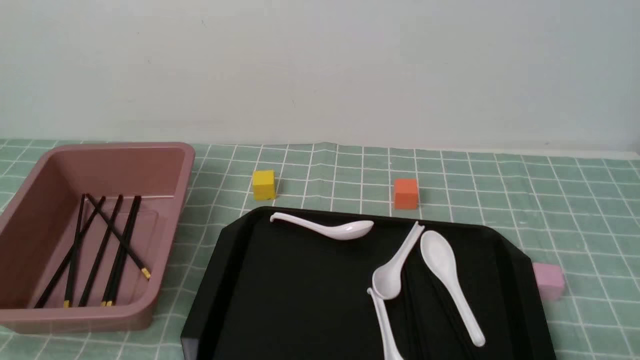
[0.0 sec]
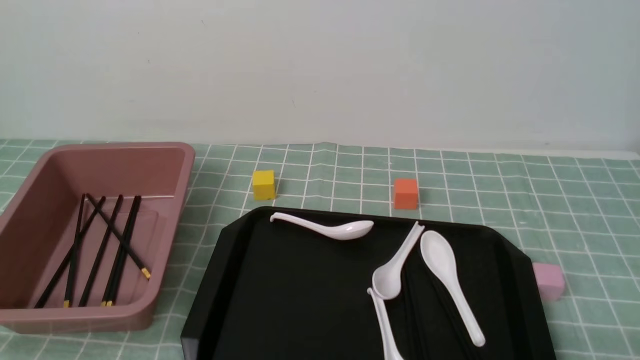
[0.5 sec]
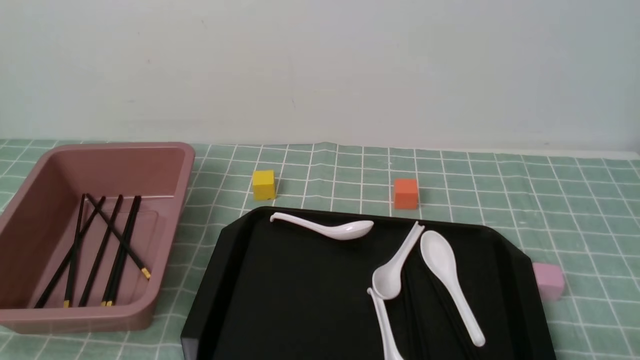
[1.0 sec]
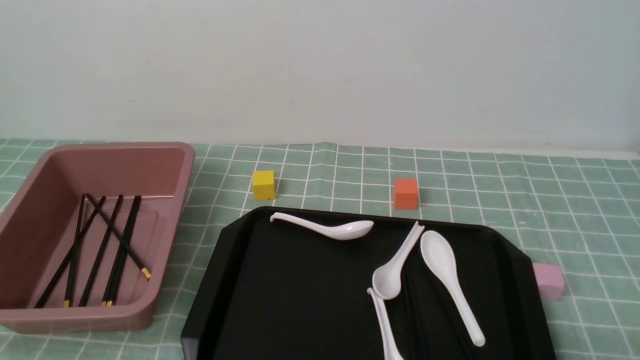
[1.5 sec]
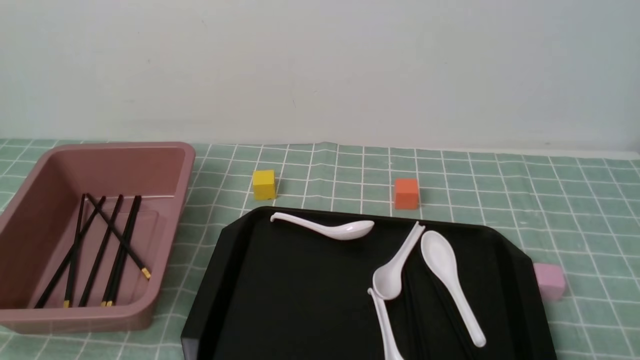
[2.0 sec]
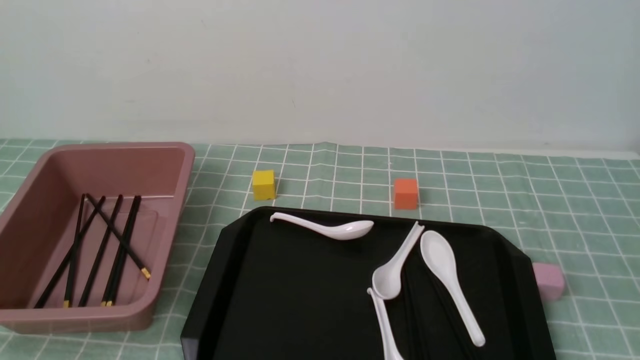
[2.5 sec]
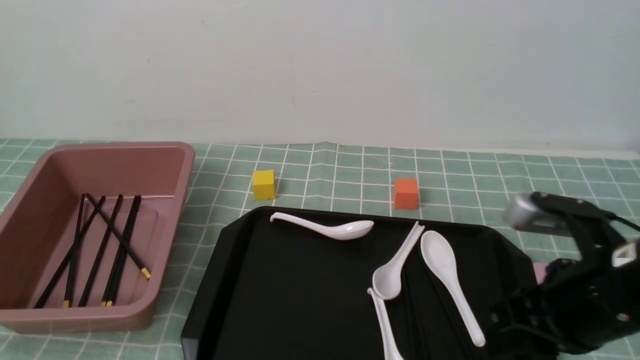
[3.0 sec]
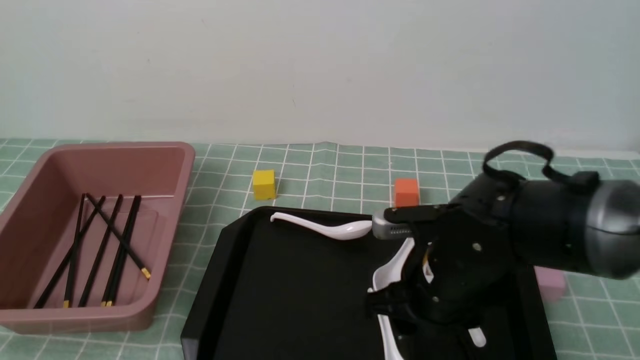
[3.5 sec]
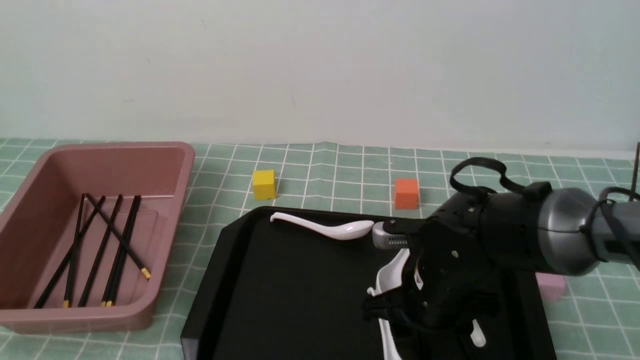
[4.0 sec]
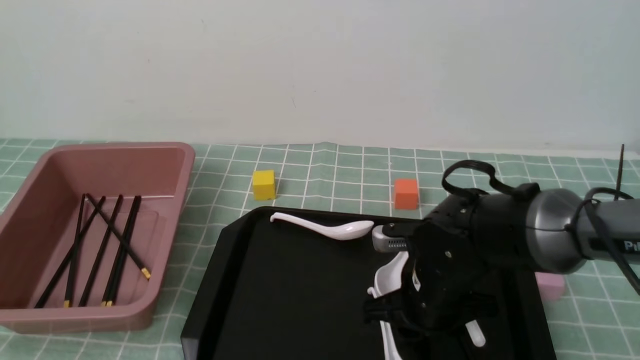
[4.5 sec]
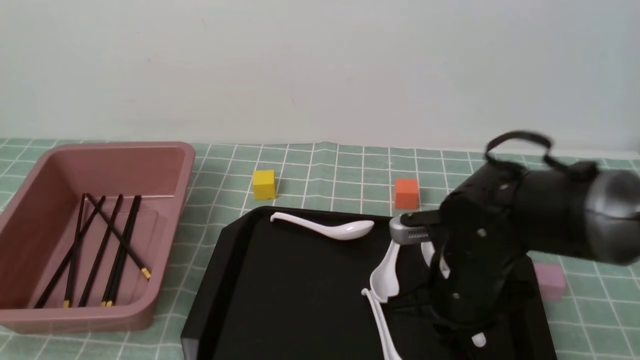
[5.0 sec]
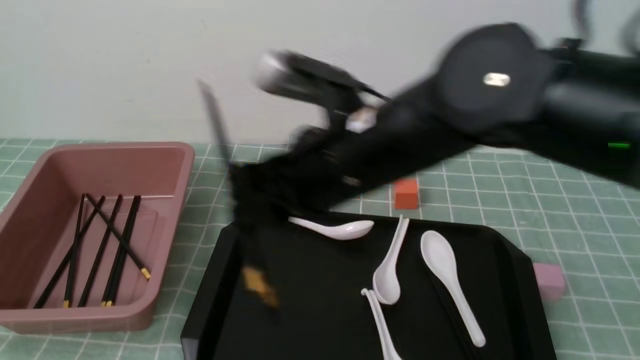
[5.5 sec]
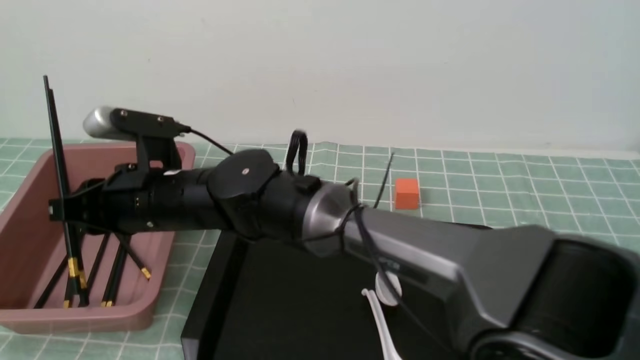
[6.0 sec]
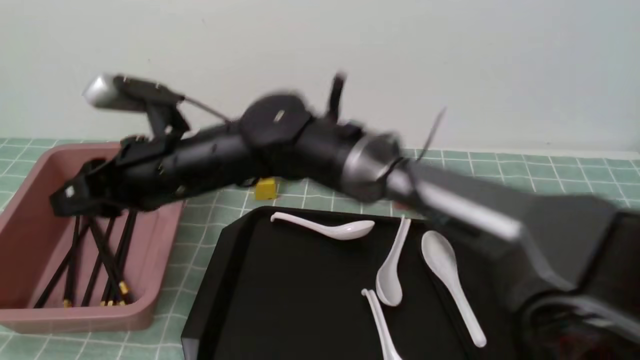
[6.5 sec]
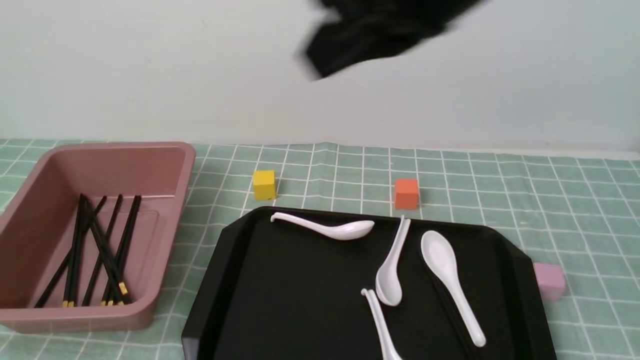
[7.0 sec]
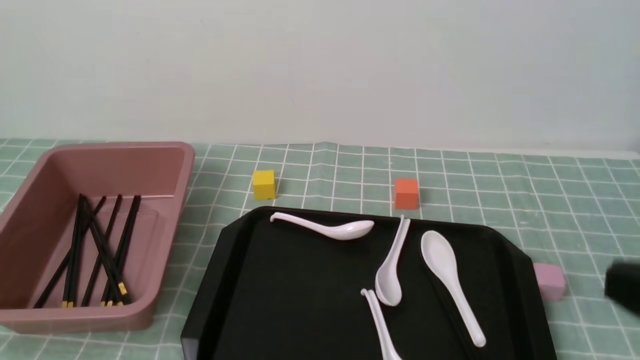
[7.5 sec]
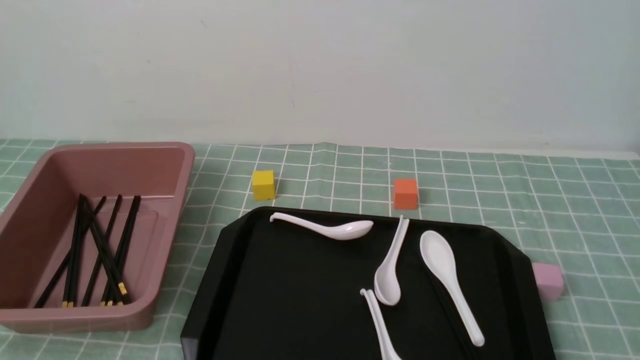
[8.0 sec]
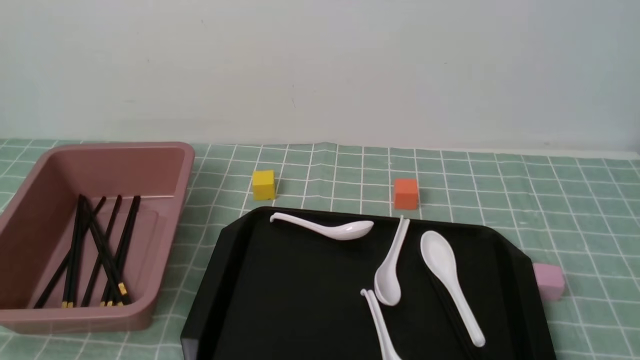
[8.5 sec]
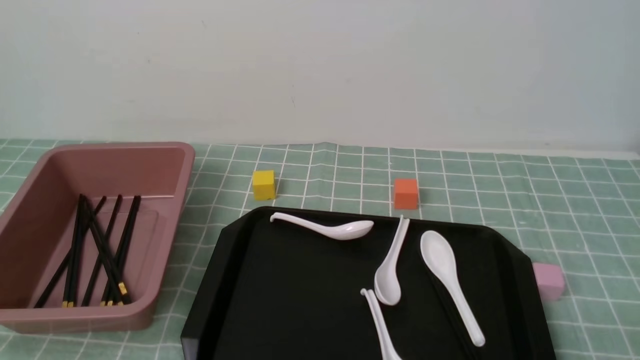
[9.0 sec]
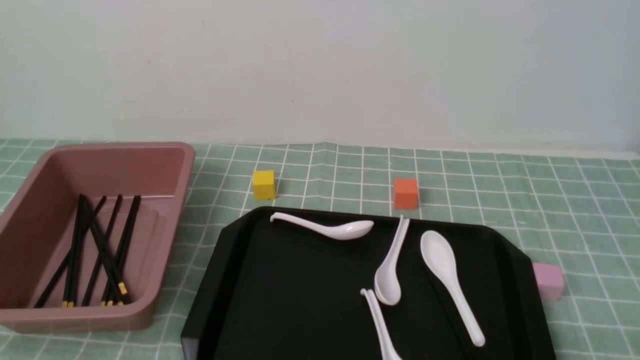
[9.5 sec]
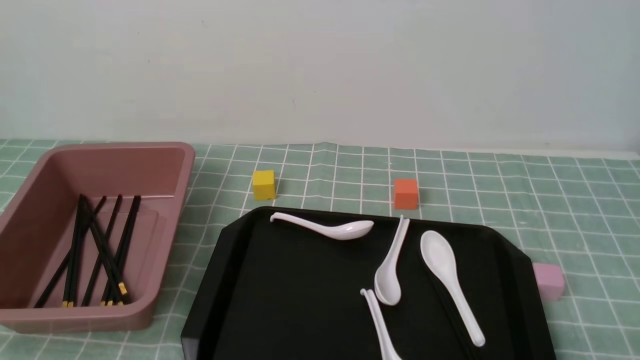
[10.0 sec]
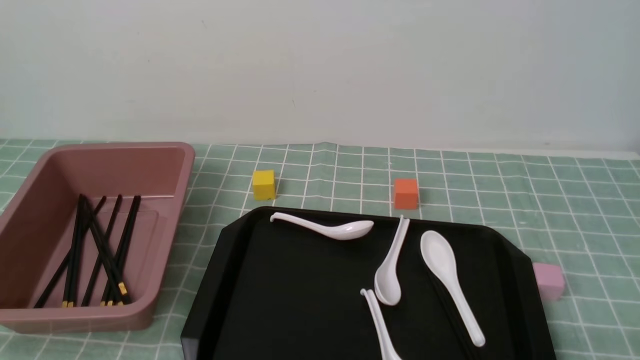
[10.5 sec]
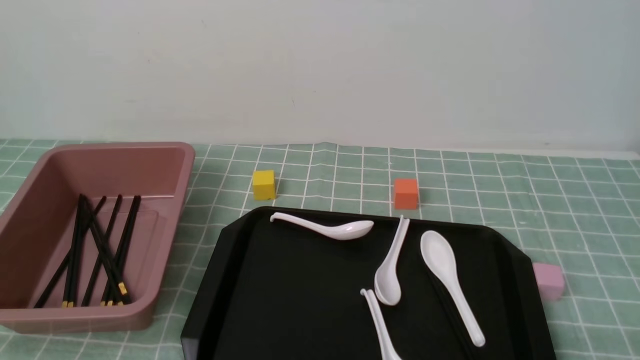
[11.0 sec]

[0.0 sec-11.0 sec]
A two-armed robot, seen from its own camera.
Step, 0.0 sec to 5.0 sec: use the right arm to grab a pair of chopsticks.
Step, 5.5 sec to 6.5 sec: use the right arm to put the chopsticks into the lunch box.
2.0 sec to 3.5 sec: The right gripper shifts approximately 30 cm forward and to the left, and opens up.
3.5 sec to 5.5 sec: The right gripper shifts roughly 15 cm upward and to the left, and closes up.
5.5 sec to 7.5 sec: The right gripper shifts roughly 30 cm to the right and backward.
7.5 sec to 9.0 sec: The right gripper is displaced downward by some 15 cm.

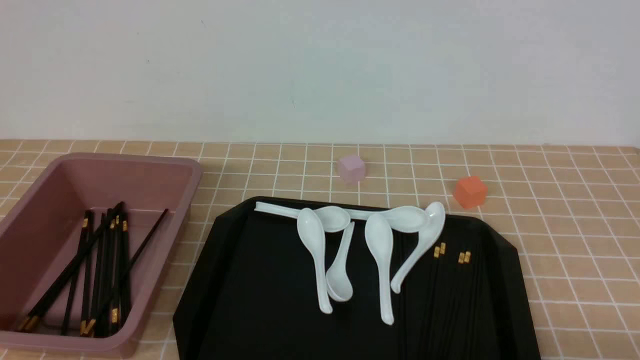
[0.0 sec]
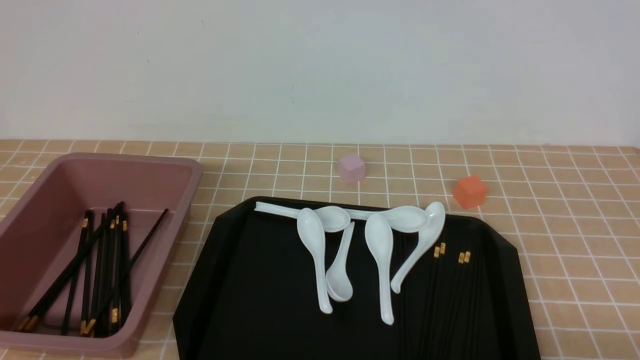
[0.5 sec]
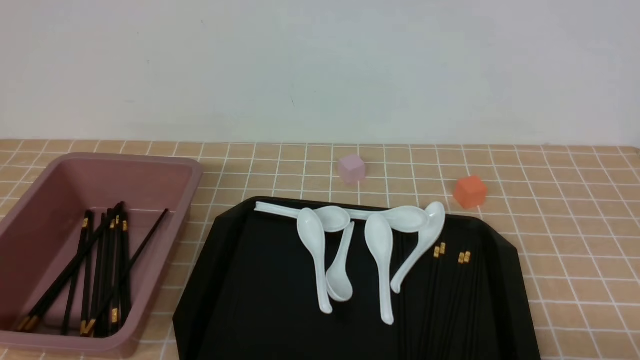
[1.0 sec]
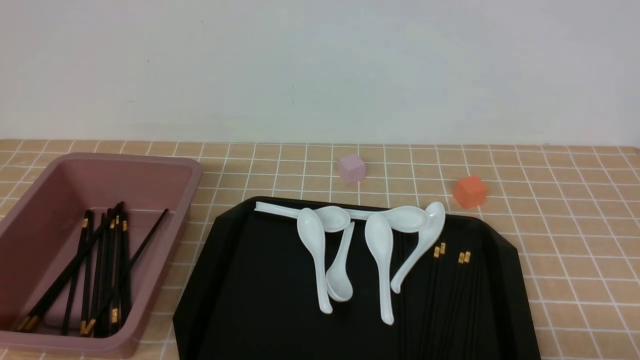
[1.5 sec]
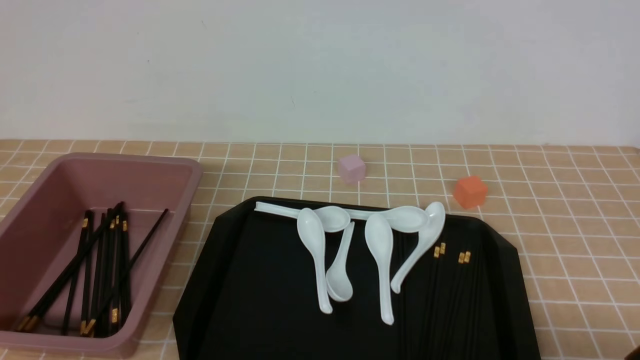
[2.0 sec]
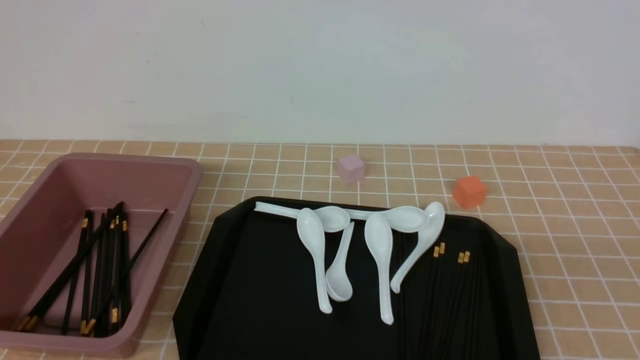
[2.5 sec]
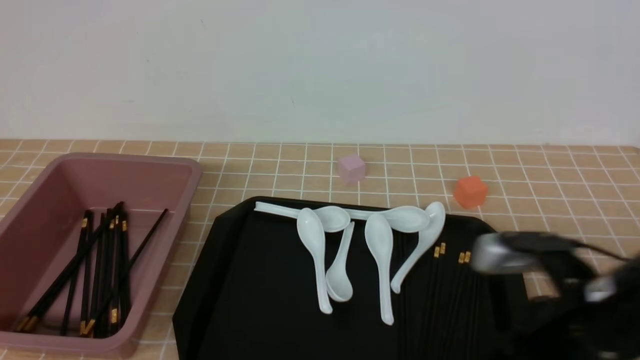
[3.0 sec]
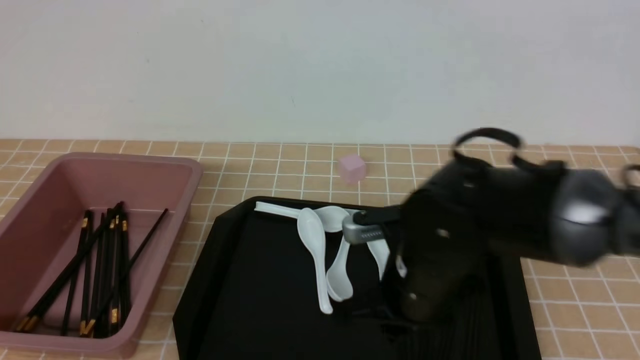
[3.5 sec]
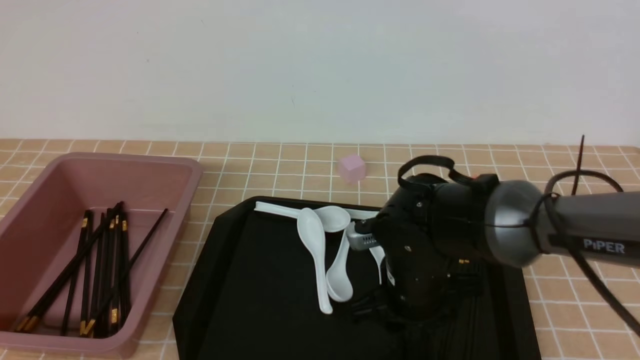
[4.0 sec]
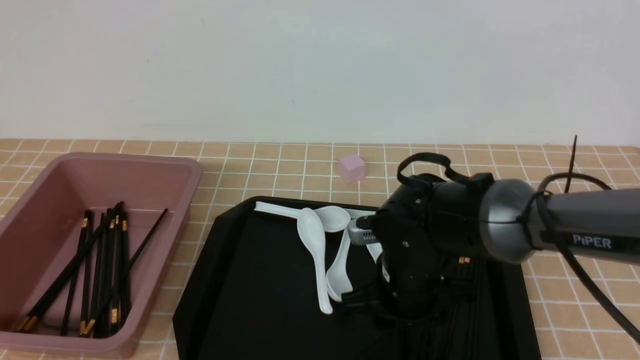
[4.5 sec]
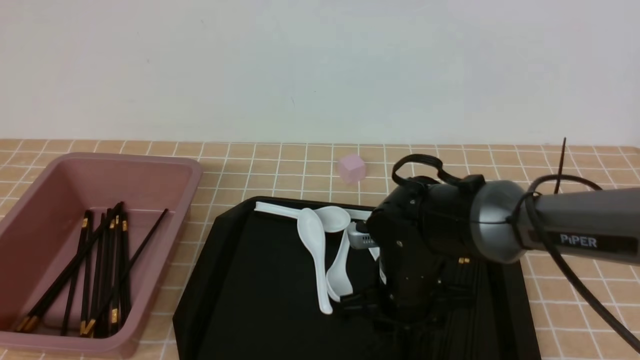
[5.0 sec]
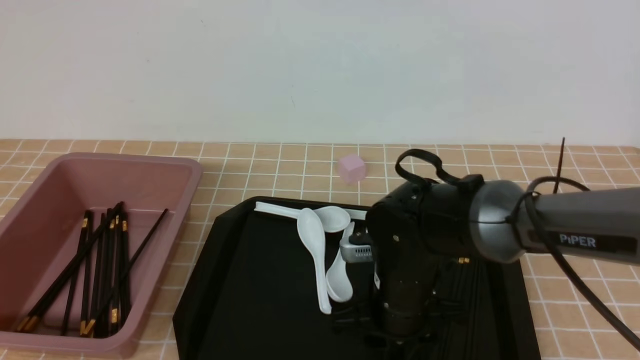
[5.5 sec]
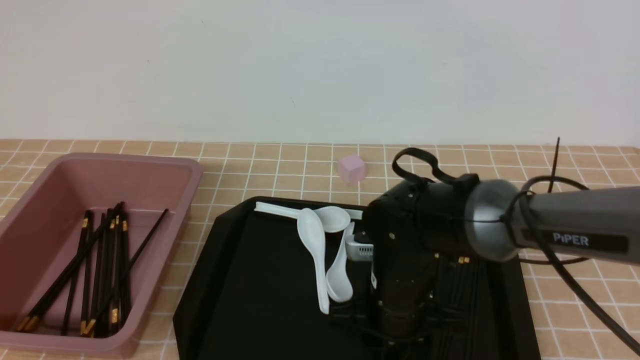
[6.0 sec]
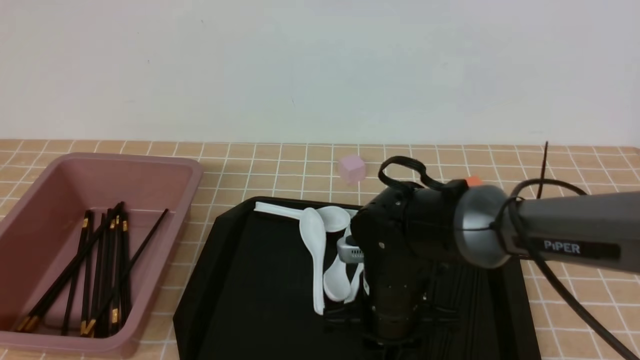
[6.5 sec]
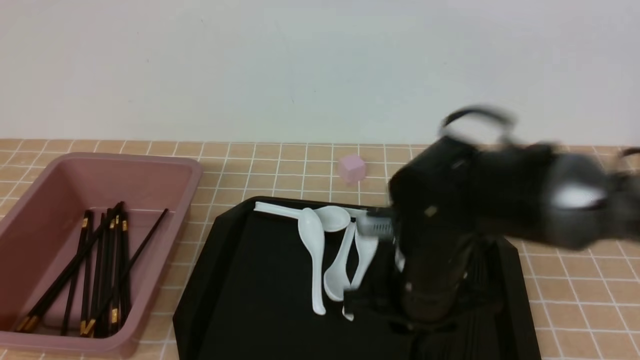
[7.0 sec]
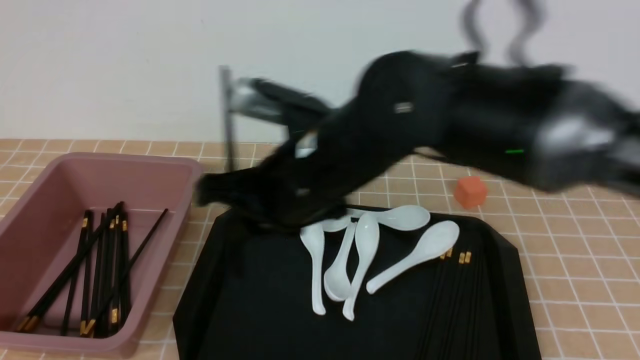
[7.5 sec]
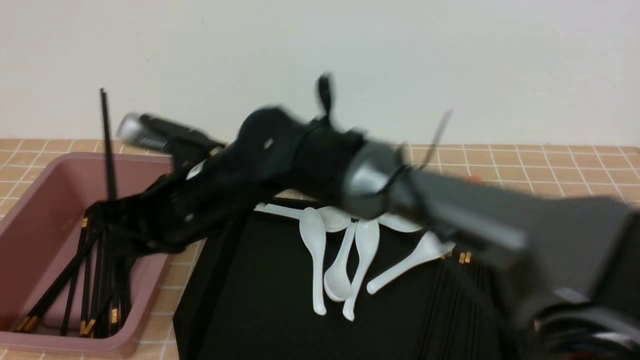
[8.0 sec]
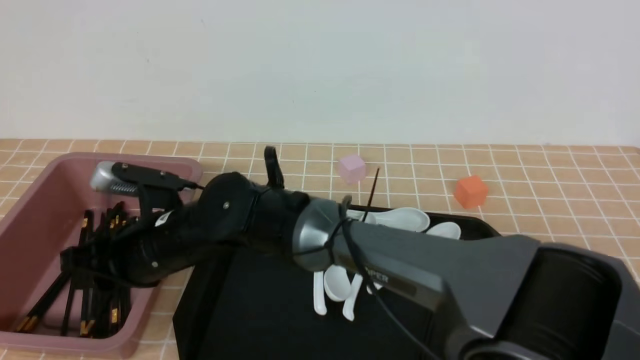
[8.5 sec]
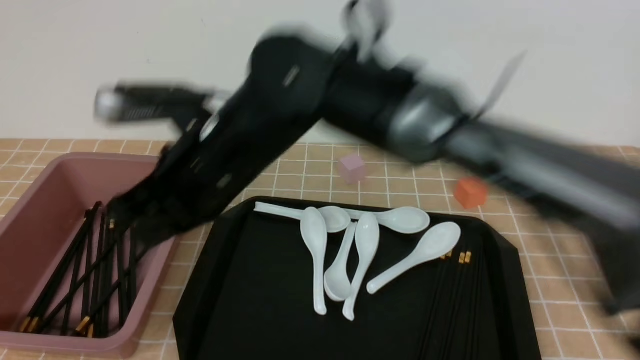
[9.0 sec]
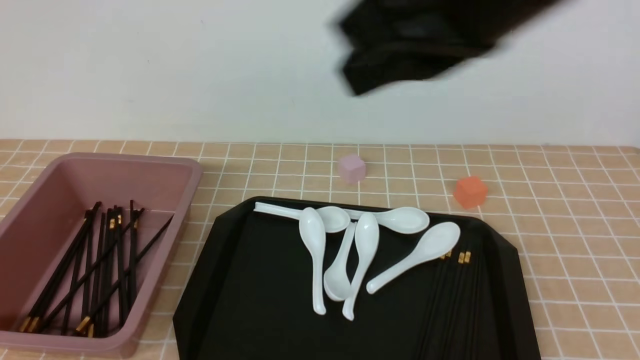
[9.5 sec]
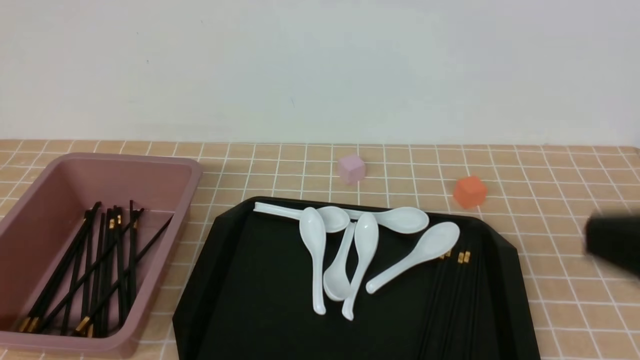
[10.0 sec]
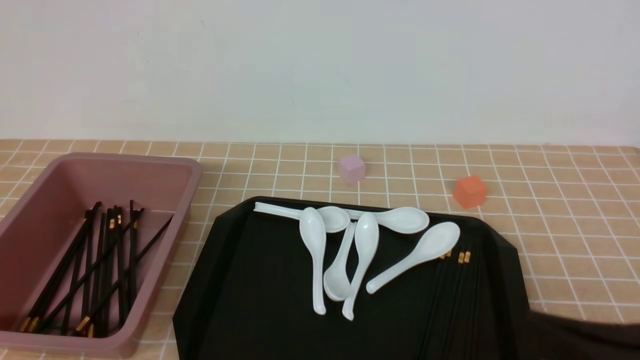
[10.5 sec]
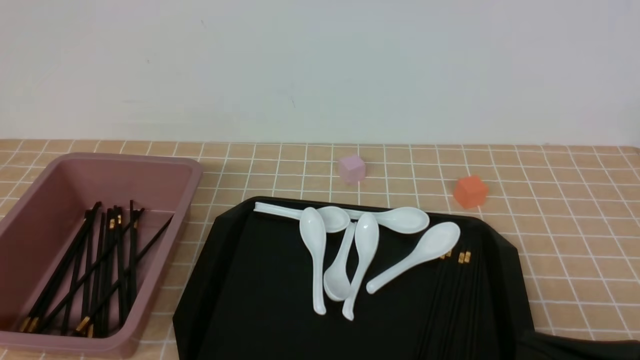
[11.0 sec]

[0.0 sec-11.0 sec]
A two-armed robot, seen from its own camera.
Step, 0.0 sec to 7.0 sec: use the right arm to grab a pair of chopsticks.
Step, 7.5 sec to 8.5 sec: use the right arm to put the chopsticks into the lunch box.
2.0 sec to 3.5 sec: The right gripper shifts some 30 cm forward and to the left, and closes, then opens again.
3.5 sec to 5.5 sec: The right gripper moves about 5 cm.
5.5 sec to 7.5 sec: The right gripper goes about 20 cm upward and to the left, and closes its fingers.
7.5 sec to 9.0 sec: The right gripper reaches approximately 10 cm downward, then returns, and opens and closes again.
9.0 sec to 11.0 sec: The right gripper shifts roughly 35 cm to the right and backward.
